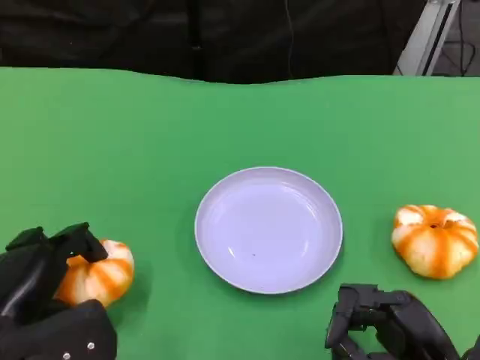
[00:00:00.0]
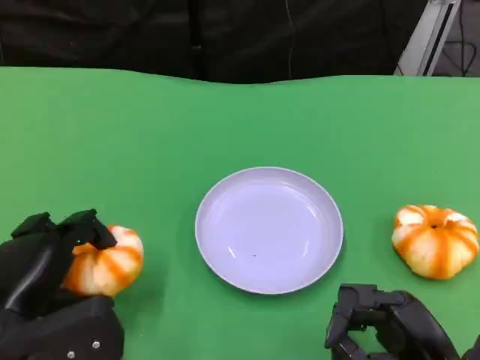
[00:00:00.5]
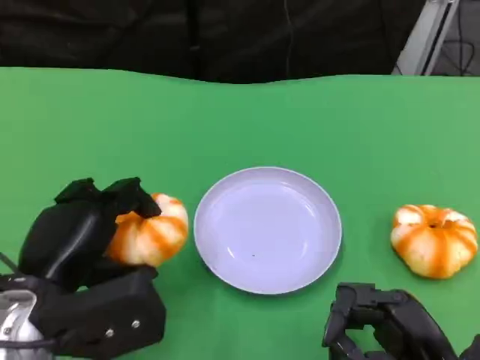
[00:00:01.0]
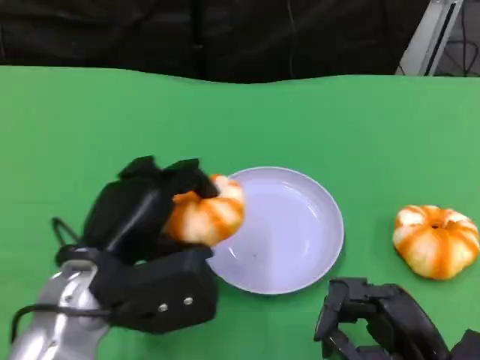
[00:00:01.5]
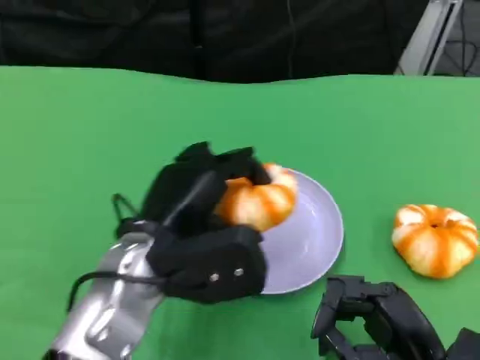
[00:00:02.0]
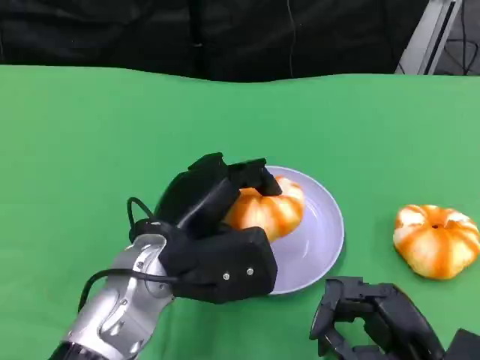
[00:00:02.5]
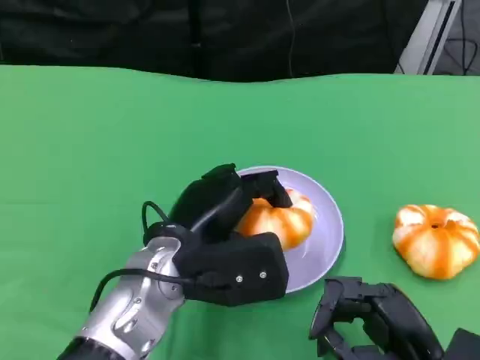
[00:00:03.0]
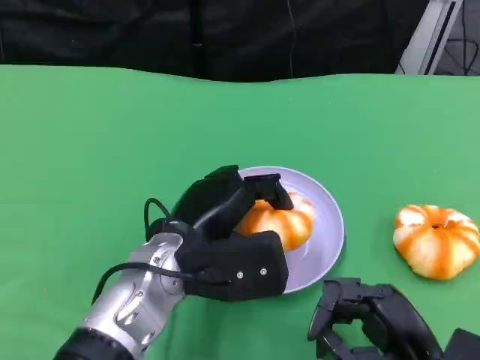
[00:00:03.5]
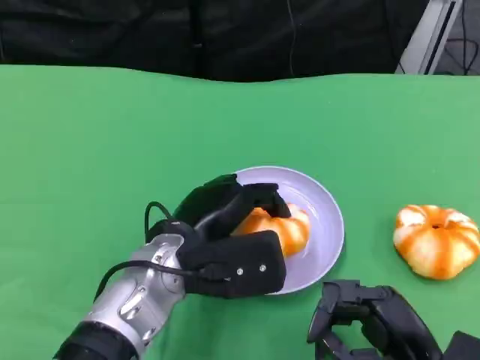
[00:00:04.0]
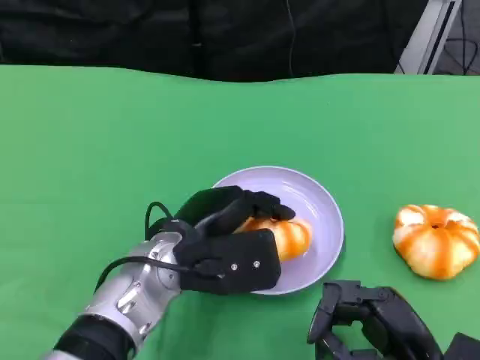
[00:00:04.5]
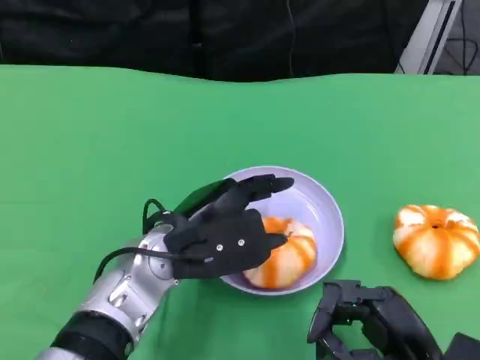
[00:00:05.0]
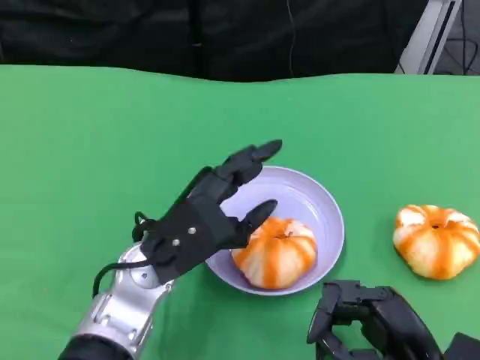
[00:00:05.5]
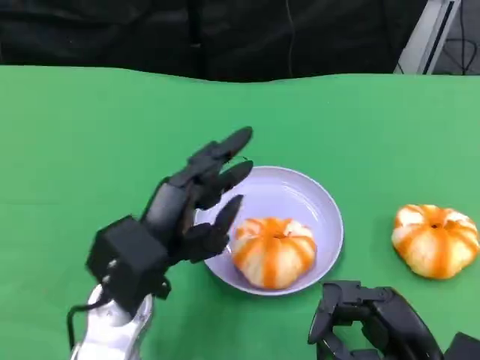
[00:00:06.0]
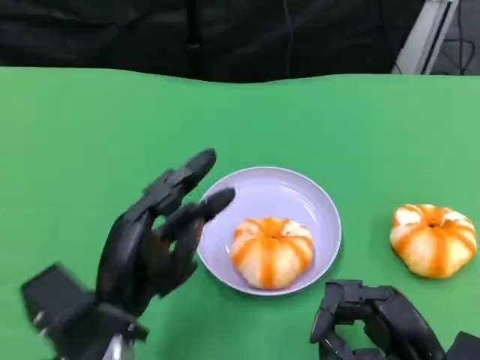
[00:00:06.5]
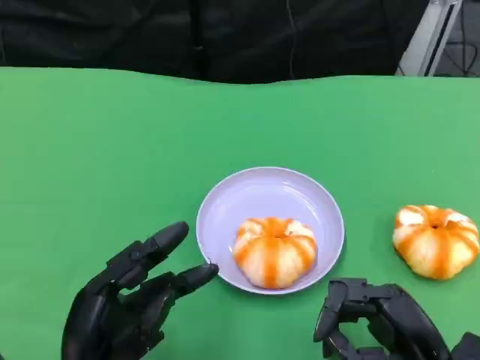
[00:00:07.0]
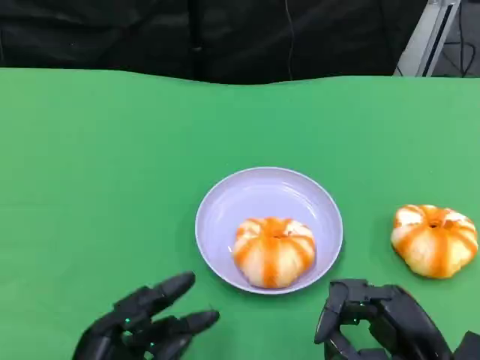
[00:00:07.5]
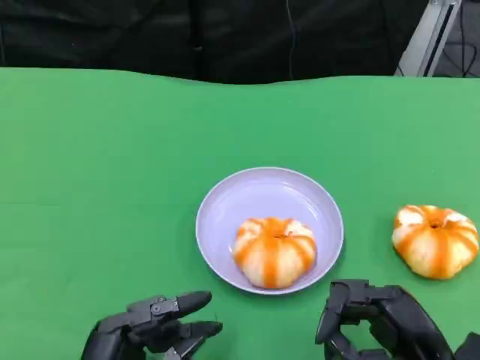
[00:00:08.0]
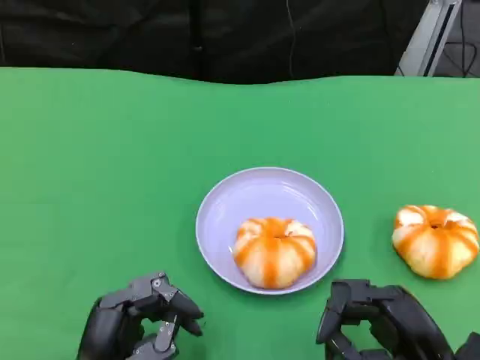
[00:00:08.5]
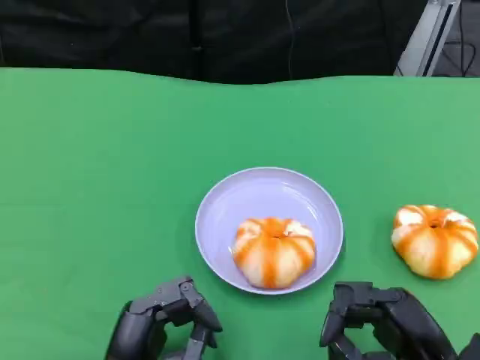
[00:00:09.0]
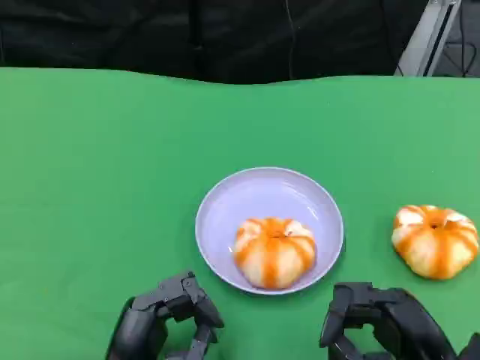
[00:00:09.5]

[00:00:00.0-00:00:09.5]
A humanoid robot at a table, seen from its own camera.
Task of the whole recording: Grasp the bread from the table and place it into the plate.
00:00:00.0 to 00:00:02.0: The left hand travels to the right and forward by roughly 15 cm.
00:00:02.0 to 00:00:04.0: The hands move only a little.
00:00:05.5 to 00:00:07.5: The left hand heads backward, downward and to the left, covering roughly 20 cm.
00:00:07.5 to 00:00:09.5: The hands make only small movements.

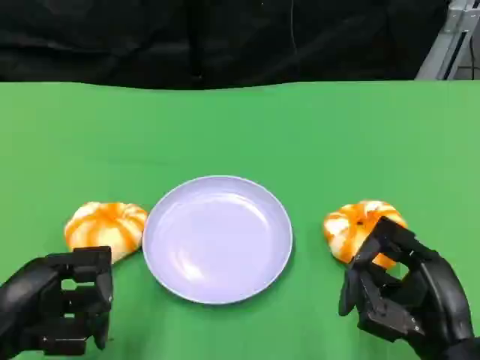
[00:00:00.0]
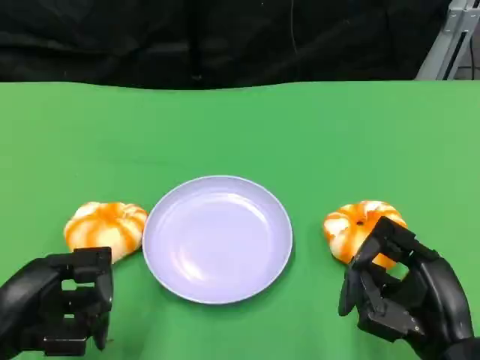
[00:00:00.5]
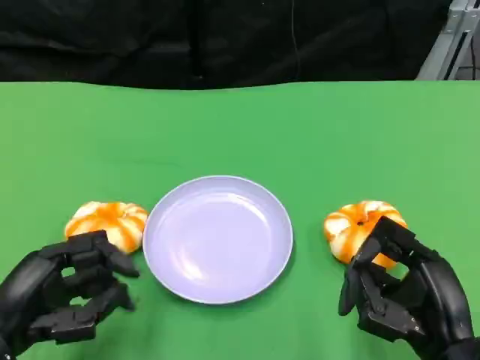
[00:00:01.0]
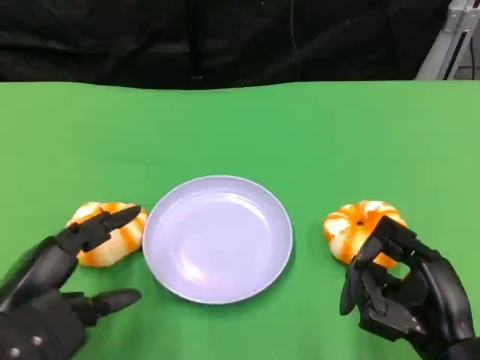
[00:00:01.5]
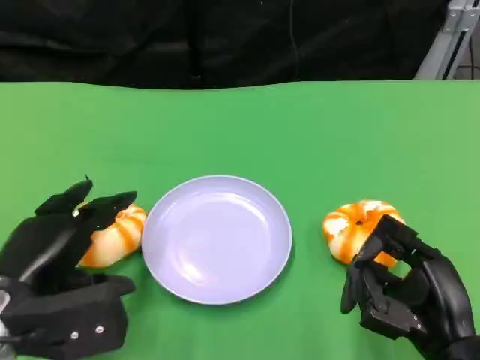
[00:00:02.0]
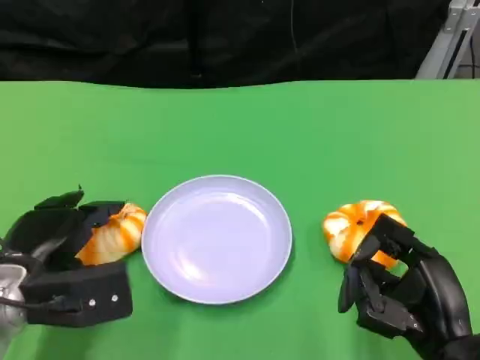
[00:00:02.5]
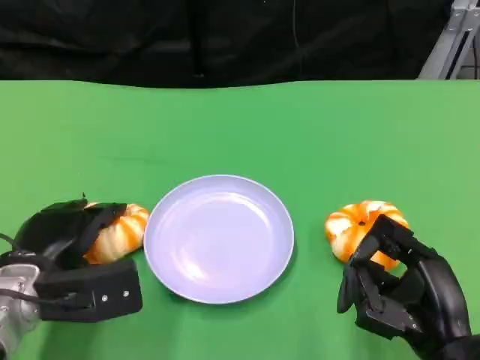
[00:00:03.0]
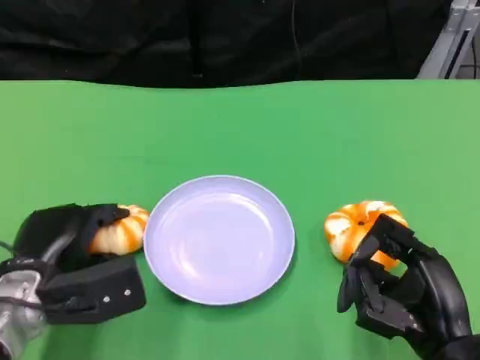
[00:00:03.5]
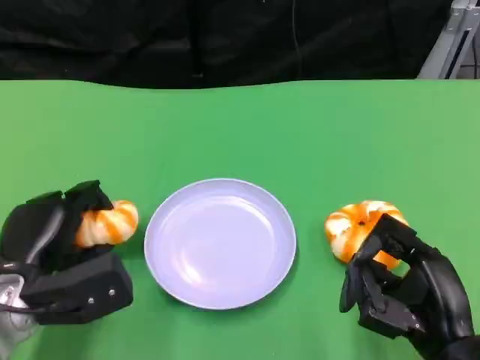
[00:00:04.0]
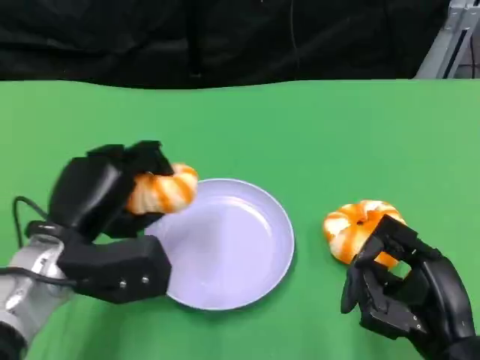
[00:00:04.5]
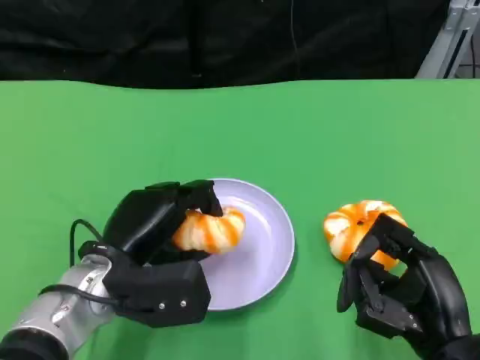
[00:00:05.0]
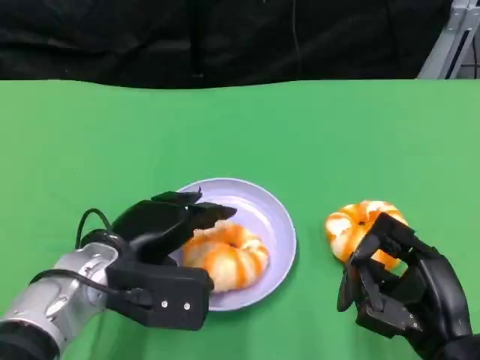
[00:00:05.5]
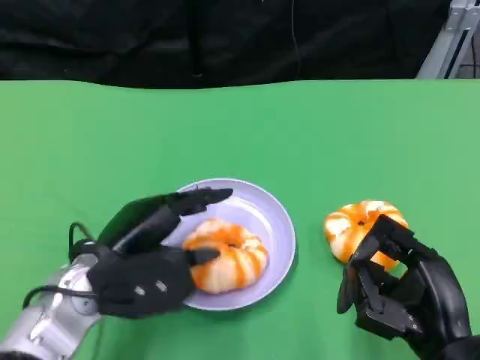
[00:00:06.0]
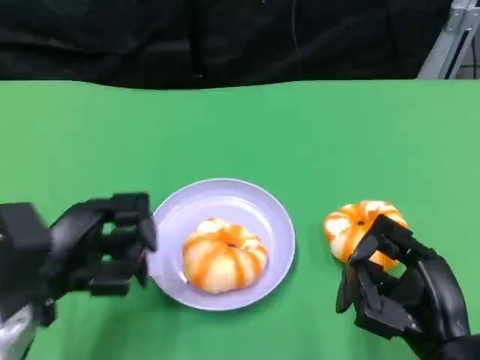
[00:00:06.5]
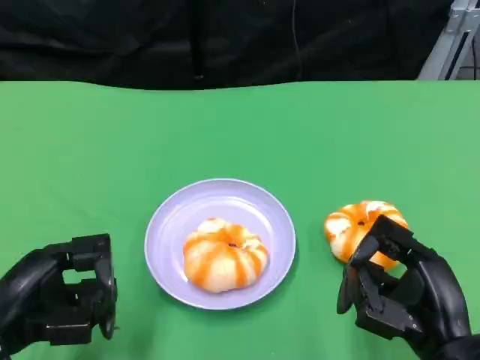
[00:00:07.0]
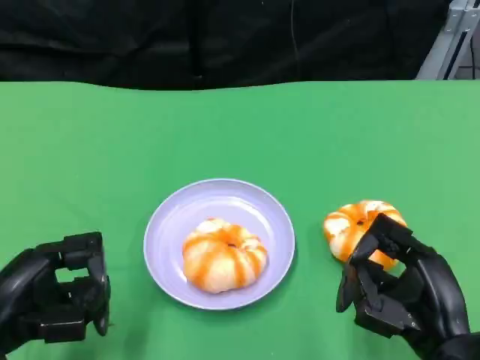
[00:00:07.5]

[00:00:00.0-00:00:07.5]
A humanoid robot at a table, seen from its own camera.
Task of the whole recording: Grasp the bread from the table and place it into the plate.
00:00:00.0 to 00:00:02.0: The left hand shifts by roughly 5 cm.
00:00:02.0 to 00:00:04.0: The left hand moves some 5 cm.
00:00:04.0 to 00:00:05.5: The left hand goes about 10 cm to the right.
00:00:05.5 to 00:00:07.5: The left hand moves to the left and backward, about 15 cm.
